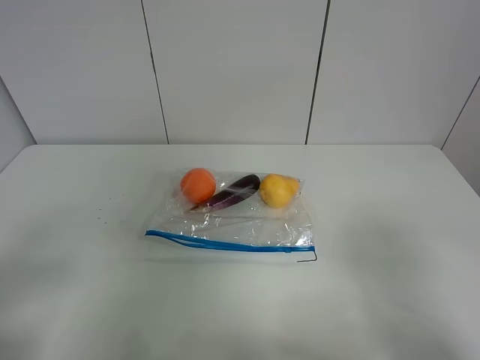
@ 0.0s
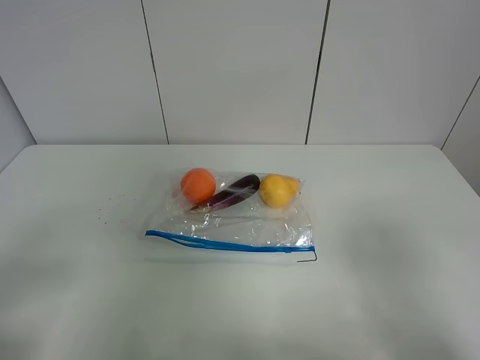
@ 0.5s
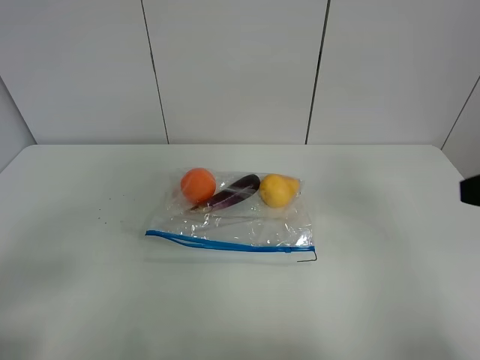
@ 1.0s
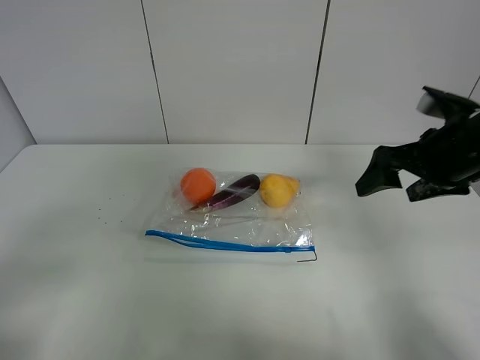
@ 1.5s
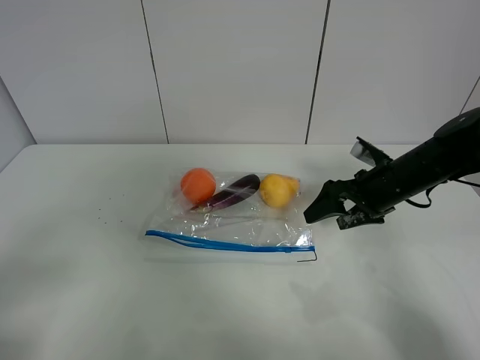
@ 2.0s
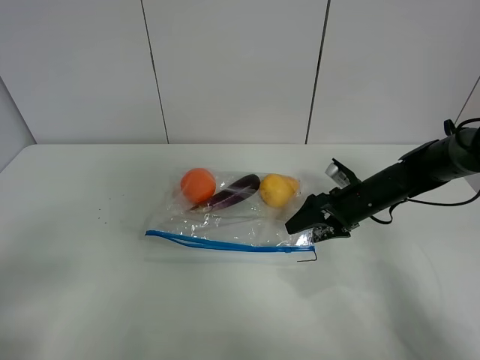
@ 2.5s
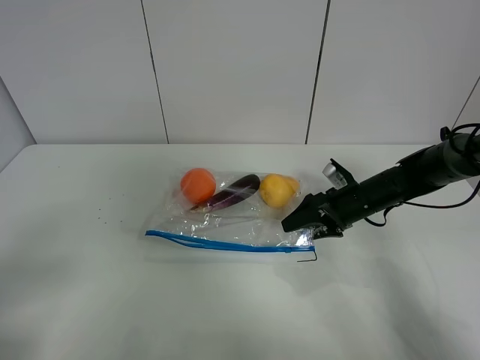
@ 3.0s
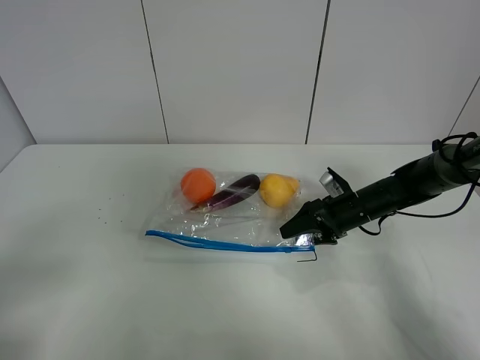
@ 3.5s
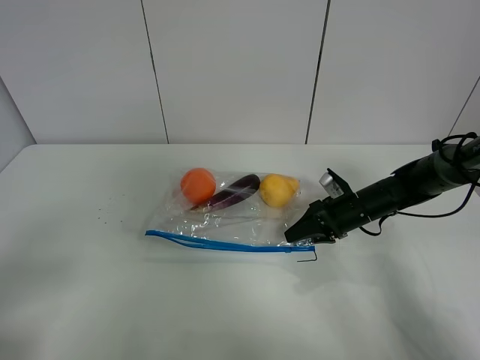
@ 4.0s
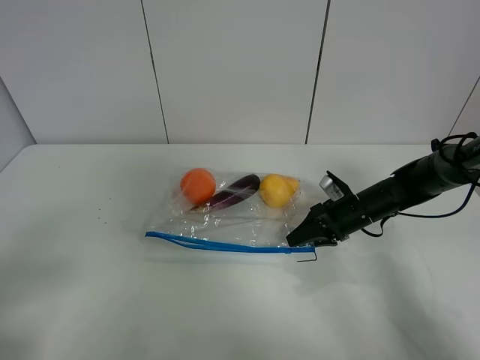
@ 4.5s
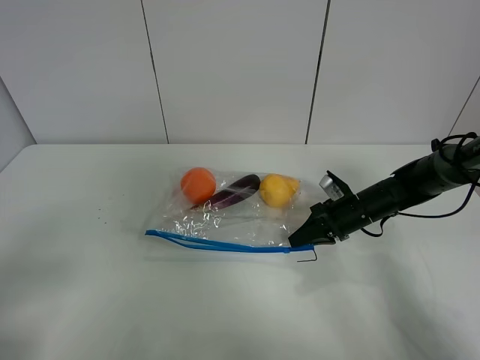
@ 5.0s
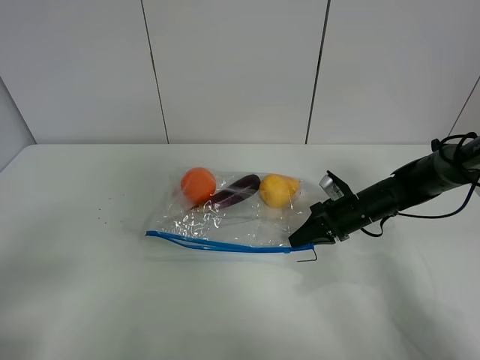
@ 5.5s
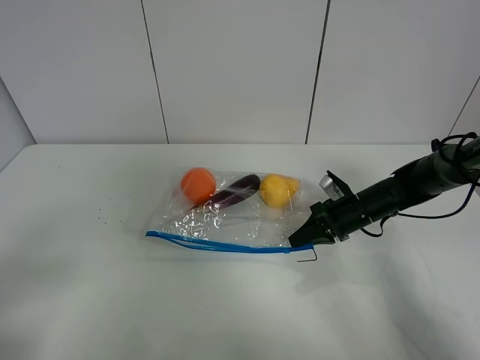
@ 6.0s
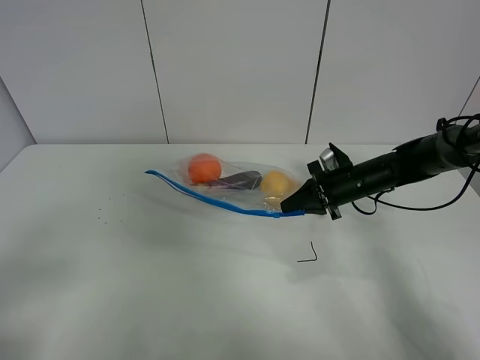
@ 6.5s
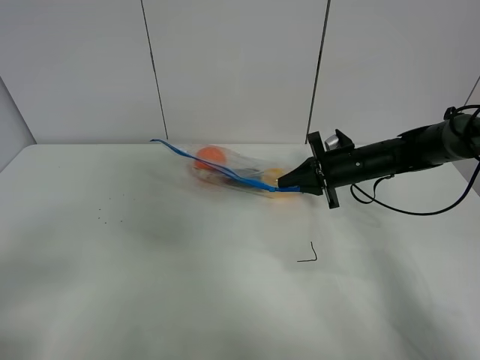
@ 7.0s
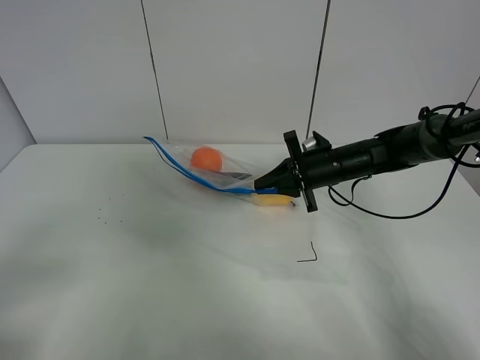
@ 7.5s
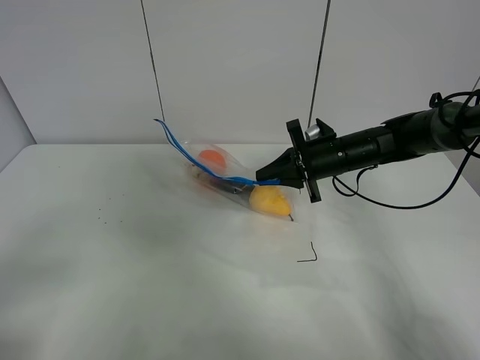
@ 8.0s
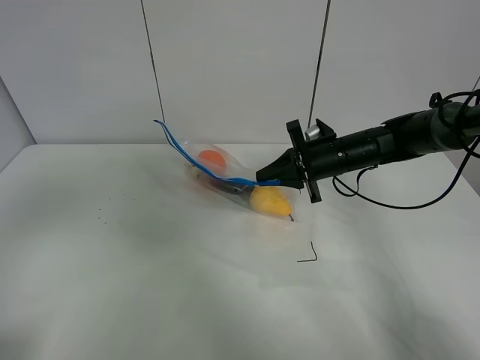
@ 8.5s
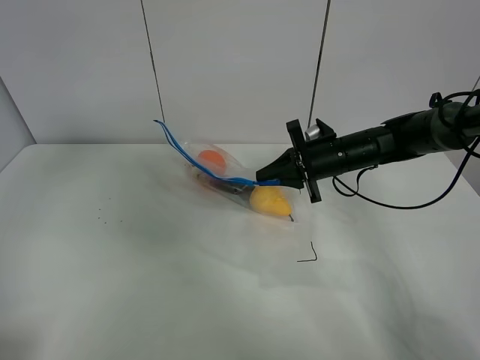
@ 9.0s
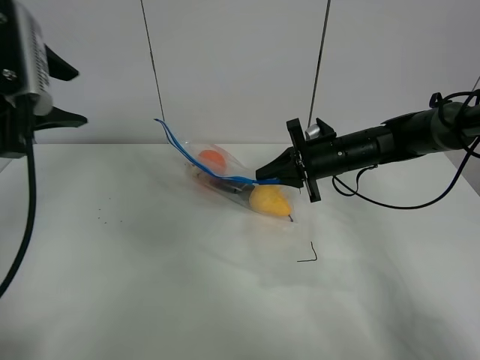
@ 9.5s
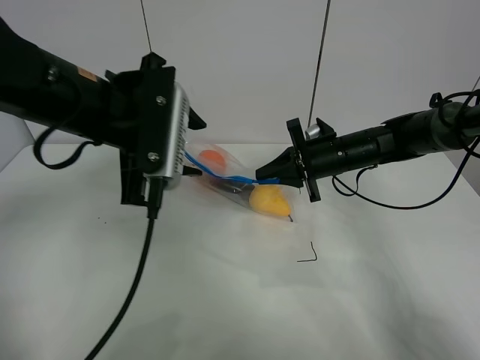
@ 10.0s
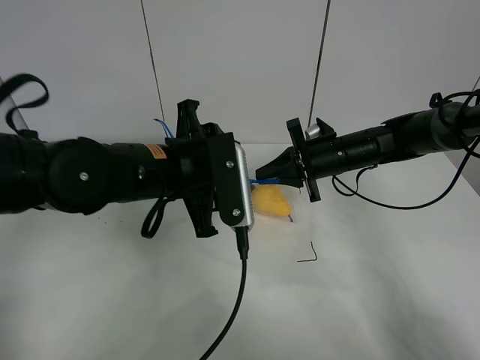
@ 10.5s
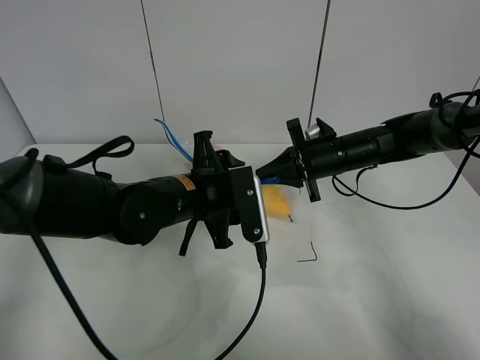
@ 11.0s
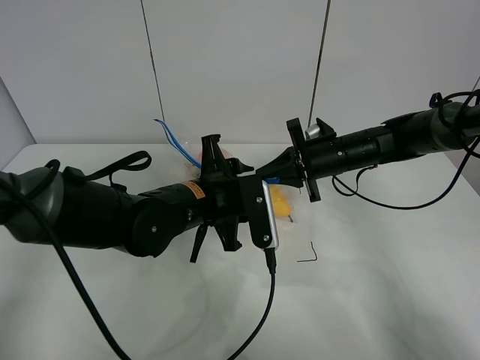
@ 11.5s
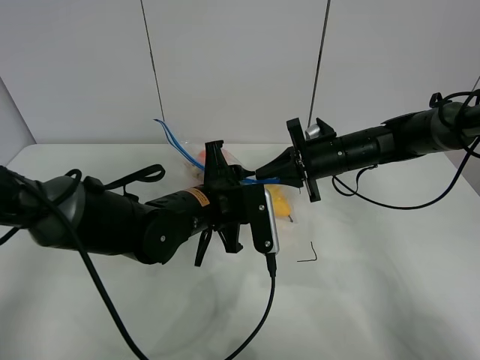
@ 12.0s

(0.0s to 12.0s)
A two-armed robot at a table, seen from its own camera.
Step, 0.0s - 5.0s: Grasp the fruit bag with right gripper.
Step, 5.5s - 7.0s: Lift the fruit bag with your right gripper.
0.0s - 2.0s: The right gripper shifts some 30 cm forward.
2.0s - 4.0s: The right gripper heads downward, covering approximately 10 cm, and closes up.
4.0s - 6.0s: The right gripper closes.
6.0s - 8.0s: The right gripper goes some 10 cm upward and to the left.
8.0s - 10.0s: The left gripper moves forward and to the right, some 30 cm.
10.0s - 12.0s: The left gripper shifts about 15 cm downward and to the right.

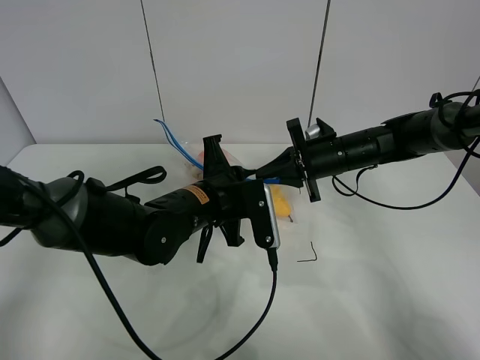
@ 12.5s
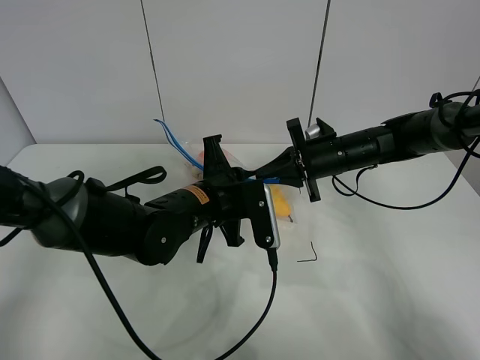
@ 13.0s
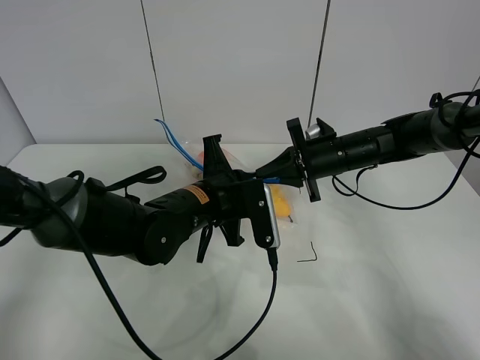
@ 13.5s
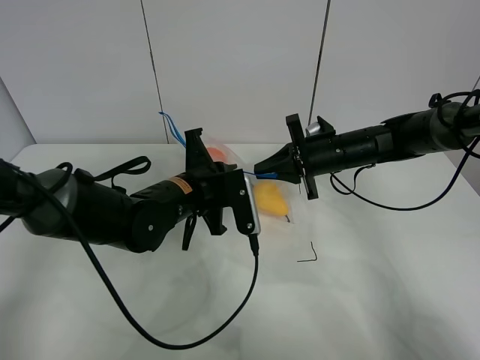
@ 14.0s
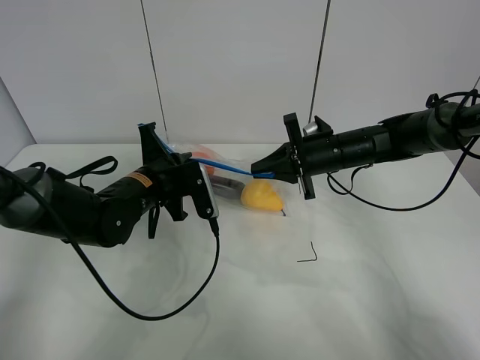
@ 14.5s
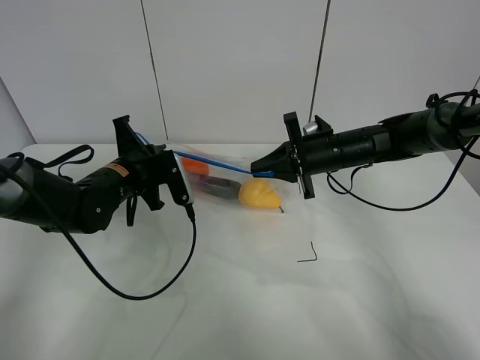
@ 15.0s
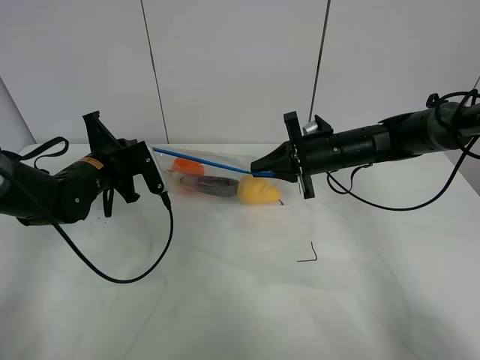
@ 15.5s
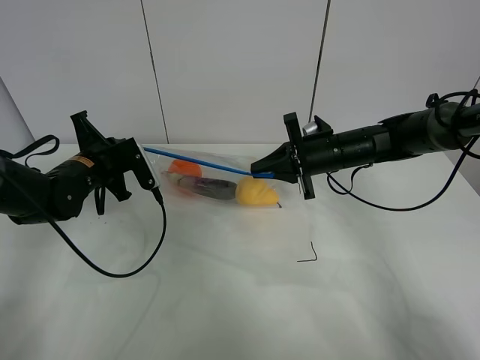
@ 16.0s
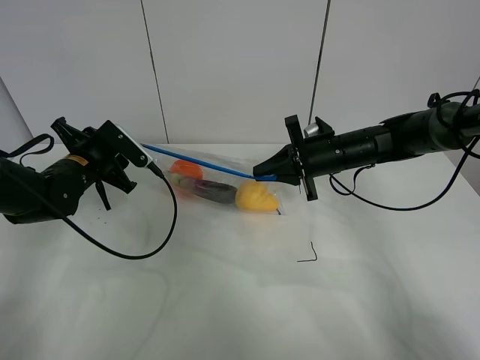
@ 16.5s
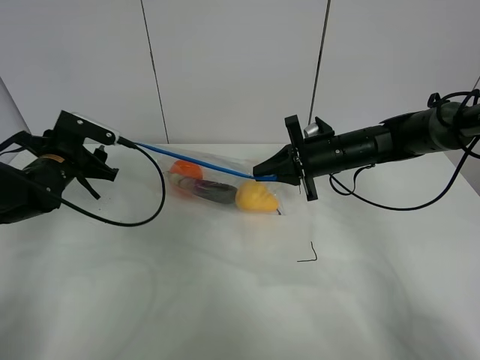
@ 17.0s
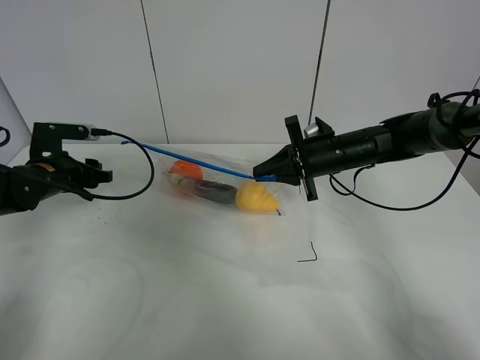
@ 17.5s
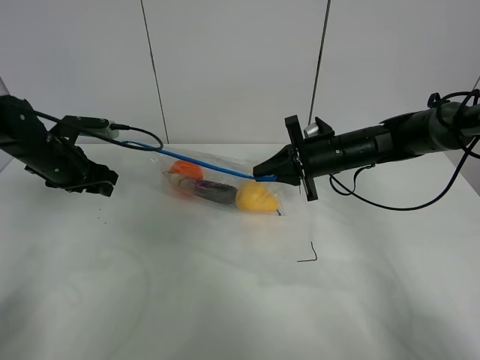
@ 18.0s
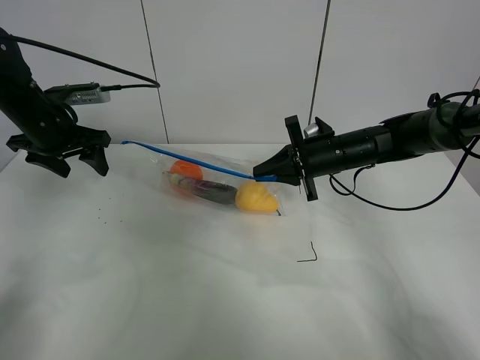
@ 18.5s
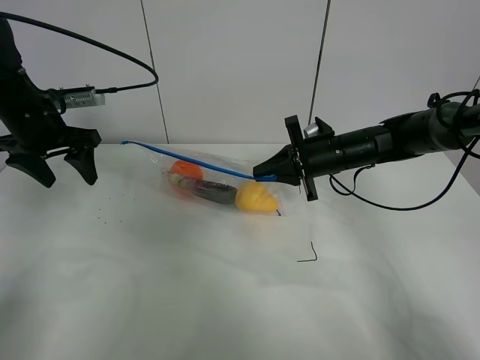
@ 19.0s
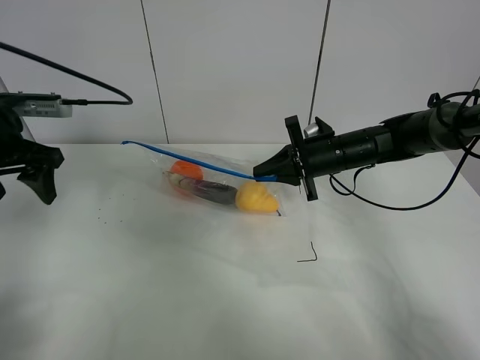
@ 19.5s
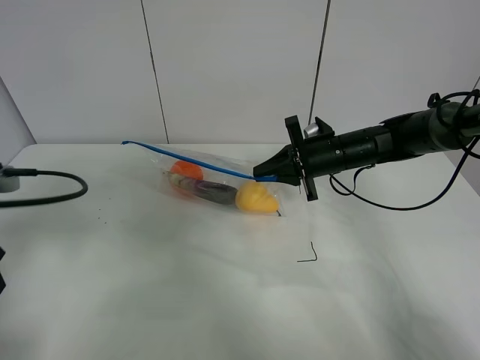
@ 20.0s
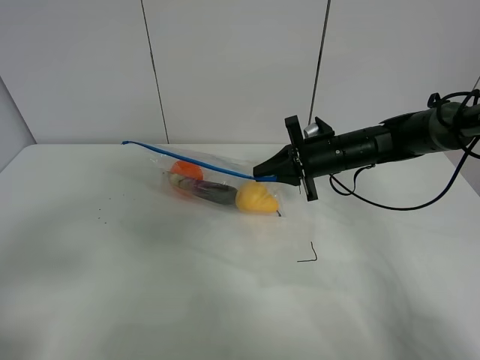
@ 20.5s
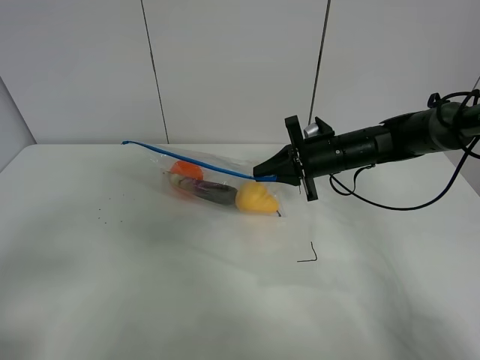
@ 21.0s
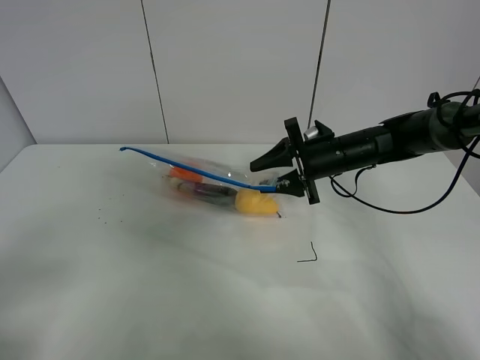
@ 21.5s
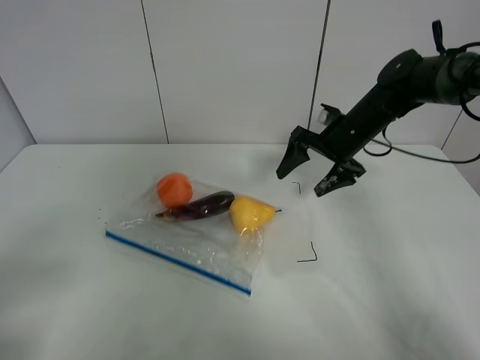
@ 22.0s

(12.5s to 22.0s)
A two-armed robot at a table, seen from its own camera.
Step, 12.5s - 16.5s: Pull the fruit bag with left gripper.
12.5s - 14.5s: The left gripper goes approximately 10 cm to the left.
14.5s - 16.5s: The left gripper shifts approximately 10 cm to the left, and opens.
16.5s - 18.0s: The left gripper shifts approximately 5 cm to the left.
18.0s - 20.0s: The left gripper shifts roughly 20 cm backward.
20.0s - 22.0s: The right gripper ends up some 5 cm from where it was, and opens up, while the left gripper is displaced backward by some 15 cm.

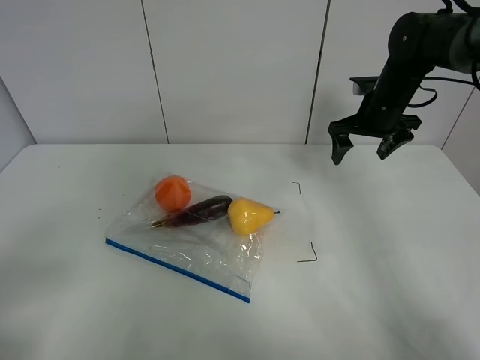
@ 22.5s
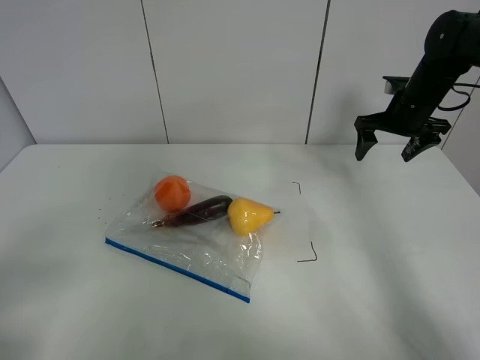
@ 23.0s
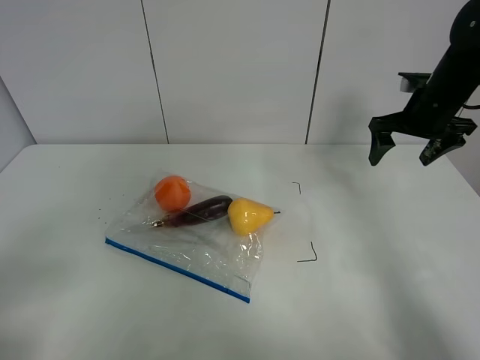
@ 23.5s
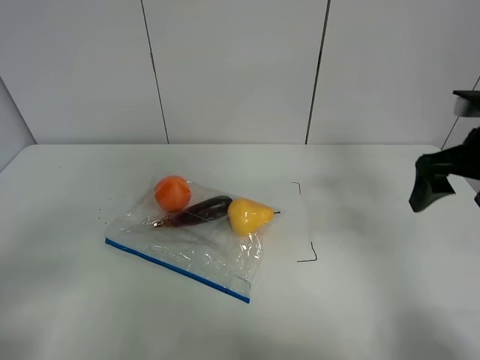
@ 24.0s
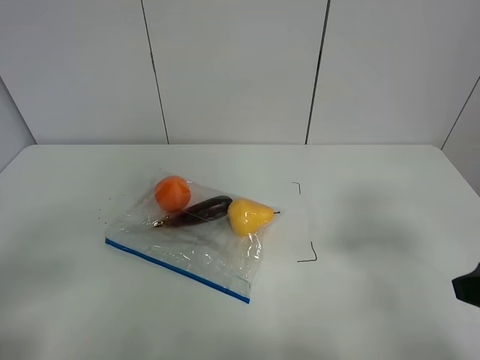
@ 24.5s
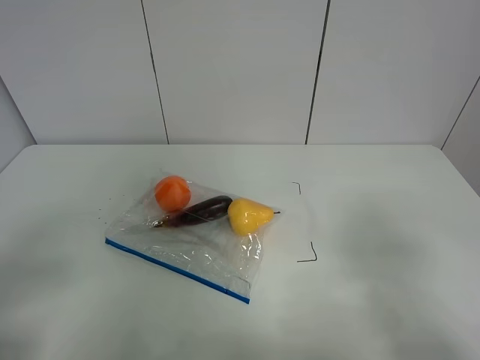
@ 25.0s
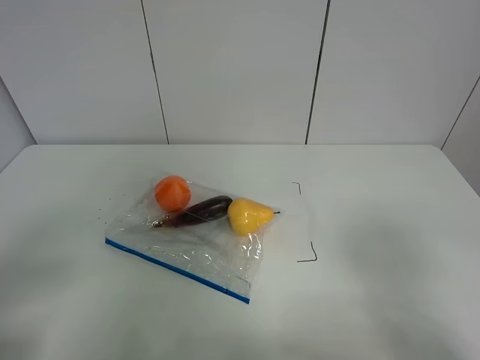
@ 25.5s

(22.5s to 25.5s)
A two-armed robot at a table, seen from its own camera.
22.5s - 24.0s: The right gripper shifts roughly 20 cm backward.
24.0s - 25.5s: The right gripper heads backward, covering roughly 25 cm.

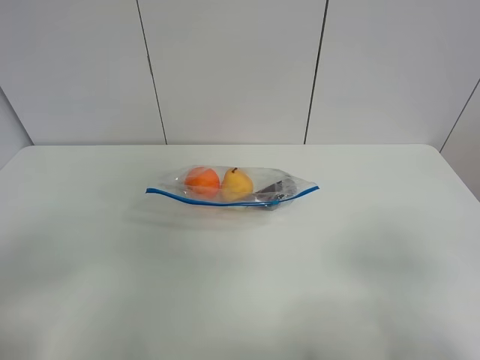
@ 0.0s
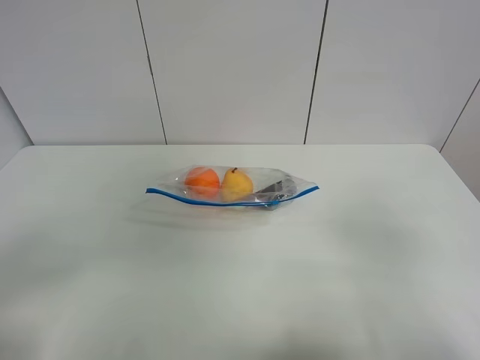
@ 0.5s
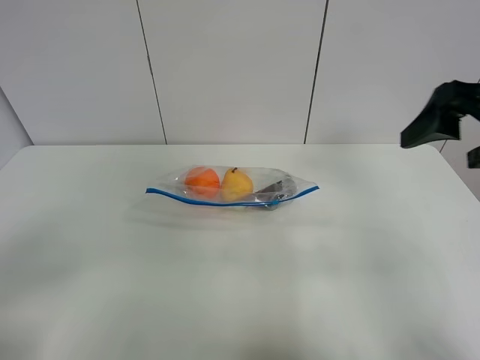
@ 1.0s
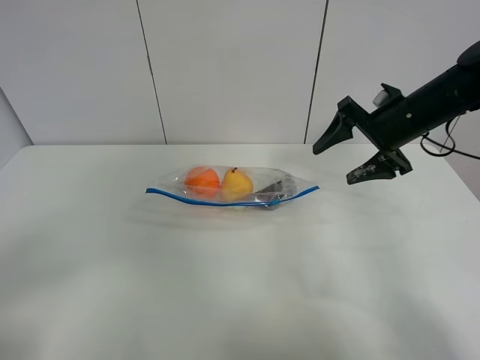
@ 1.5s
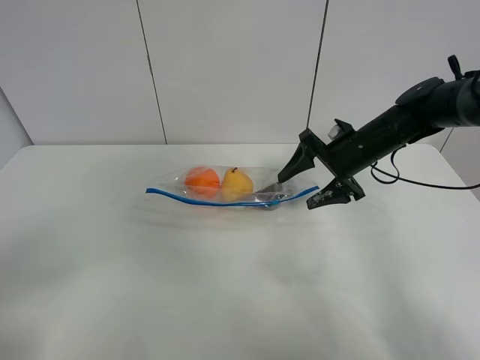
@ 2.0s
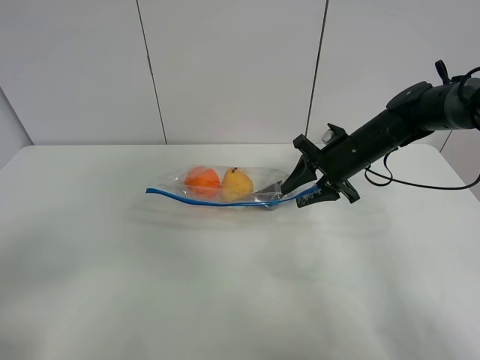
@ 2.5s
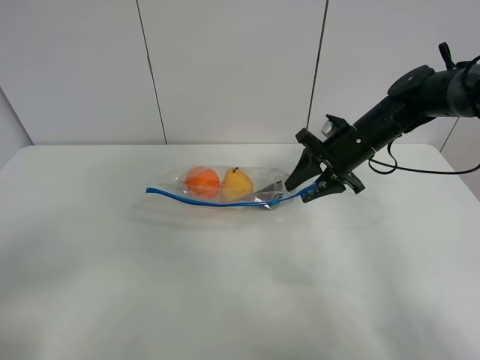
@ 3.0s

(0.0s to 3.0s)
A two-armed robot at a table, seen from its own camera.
0.0s - 1.5s: The right gripper is displaced forward by approximately 35 cm.
1.5s - 3.0s: The right gripper travels downward by about 5 cm, and closes.
